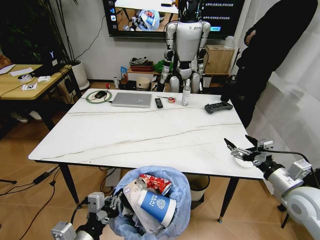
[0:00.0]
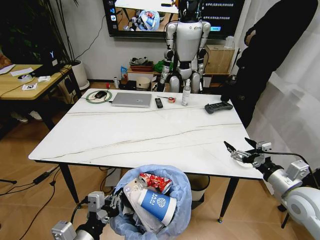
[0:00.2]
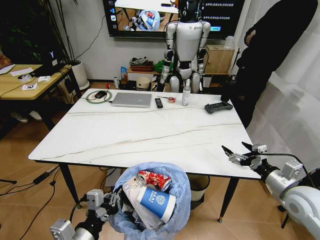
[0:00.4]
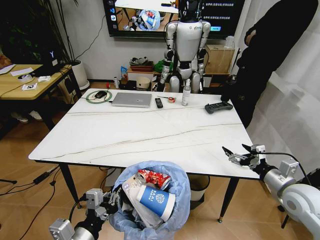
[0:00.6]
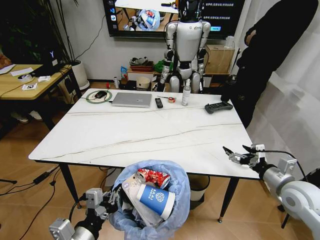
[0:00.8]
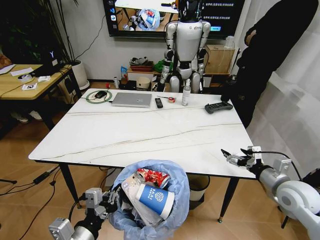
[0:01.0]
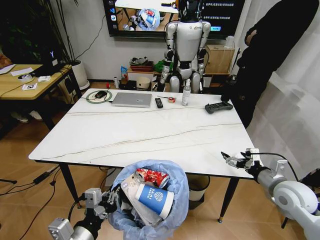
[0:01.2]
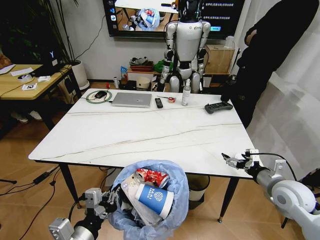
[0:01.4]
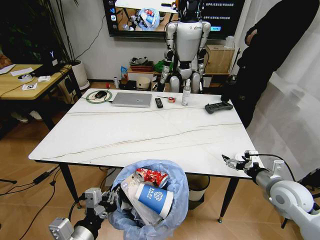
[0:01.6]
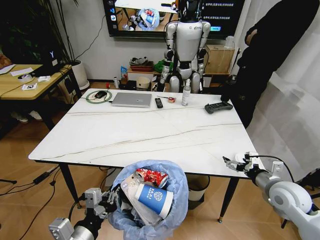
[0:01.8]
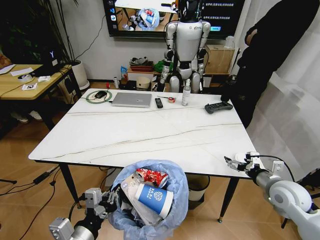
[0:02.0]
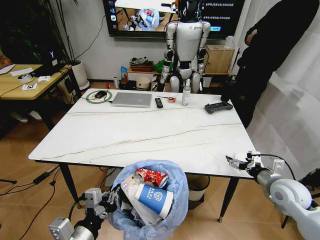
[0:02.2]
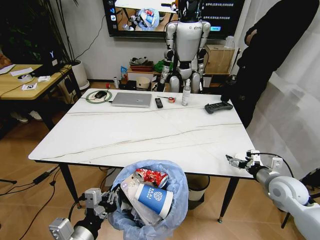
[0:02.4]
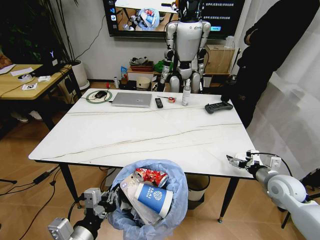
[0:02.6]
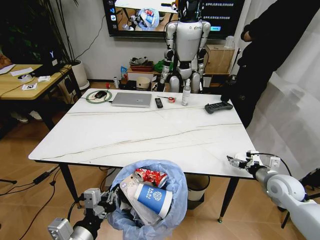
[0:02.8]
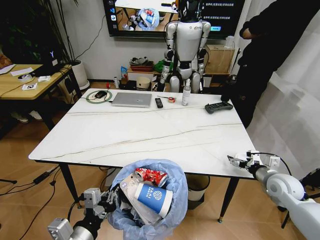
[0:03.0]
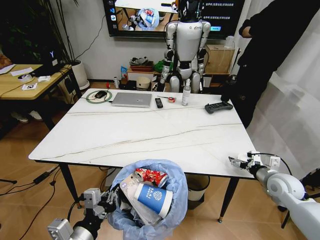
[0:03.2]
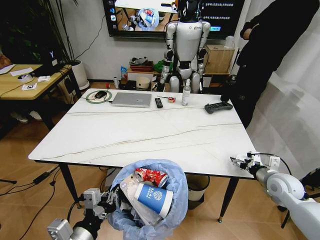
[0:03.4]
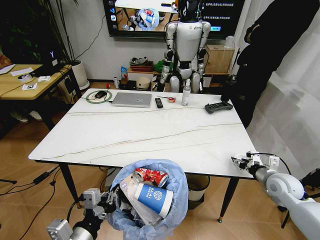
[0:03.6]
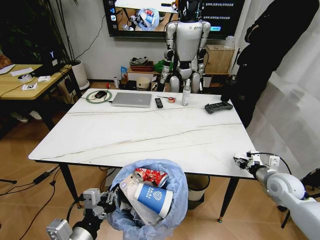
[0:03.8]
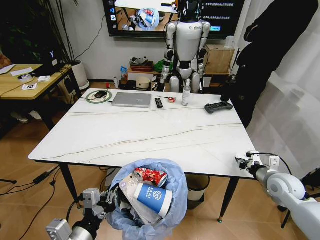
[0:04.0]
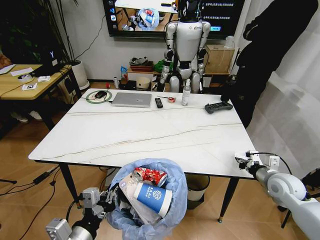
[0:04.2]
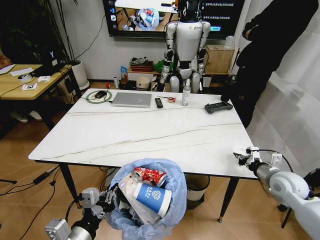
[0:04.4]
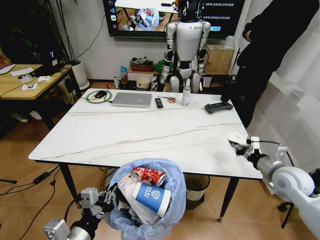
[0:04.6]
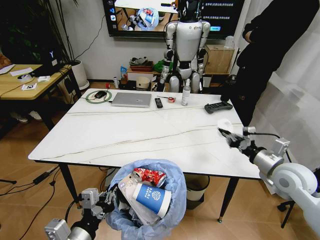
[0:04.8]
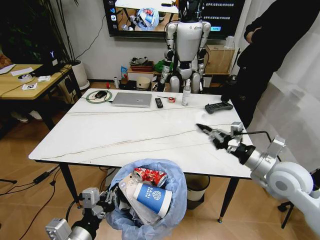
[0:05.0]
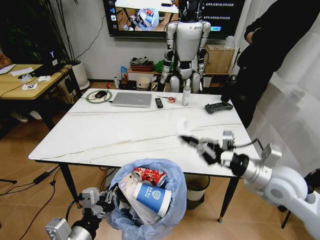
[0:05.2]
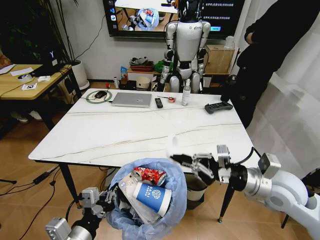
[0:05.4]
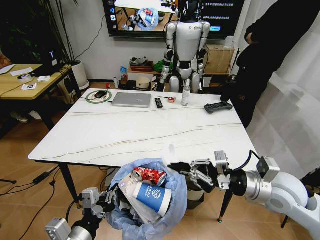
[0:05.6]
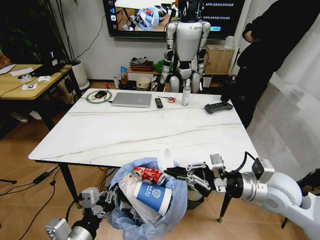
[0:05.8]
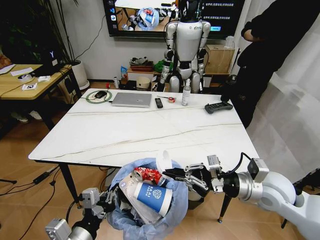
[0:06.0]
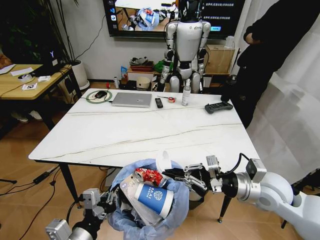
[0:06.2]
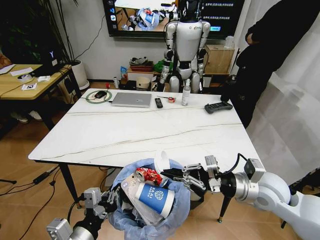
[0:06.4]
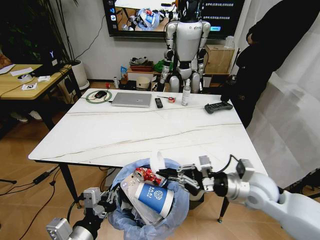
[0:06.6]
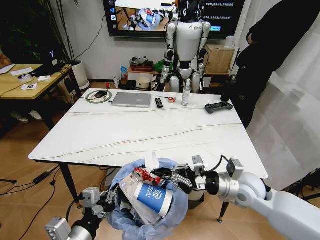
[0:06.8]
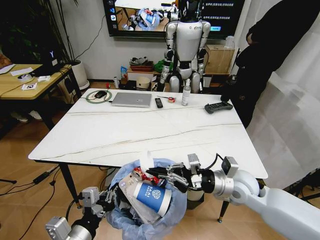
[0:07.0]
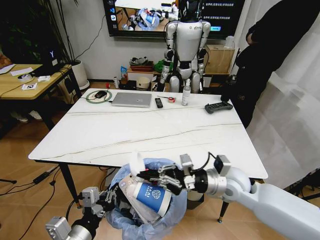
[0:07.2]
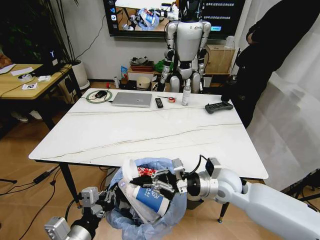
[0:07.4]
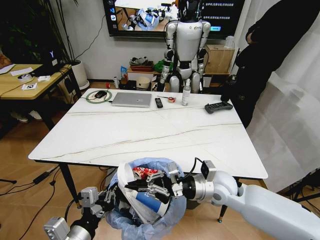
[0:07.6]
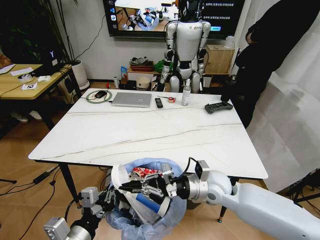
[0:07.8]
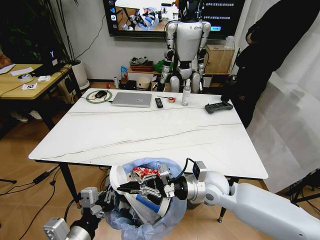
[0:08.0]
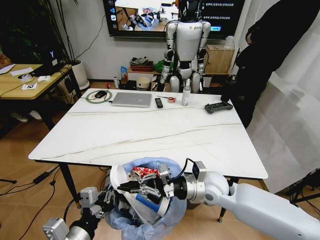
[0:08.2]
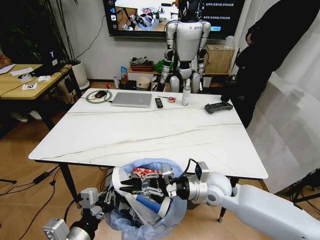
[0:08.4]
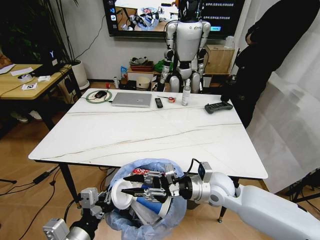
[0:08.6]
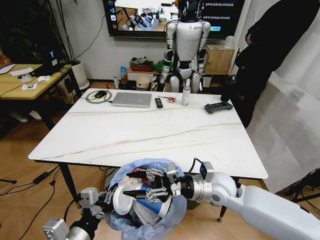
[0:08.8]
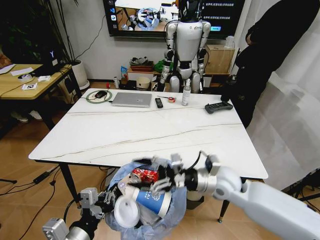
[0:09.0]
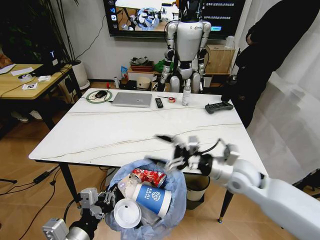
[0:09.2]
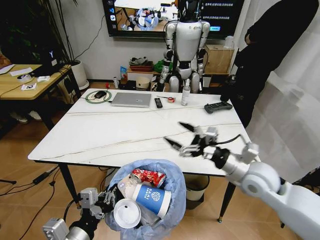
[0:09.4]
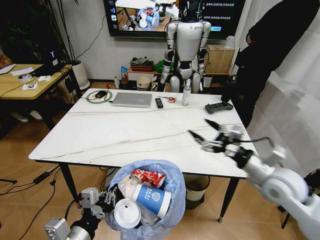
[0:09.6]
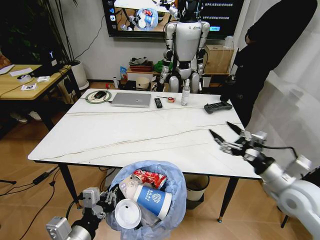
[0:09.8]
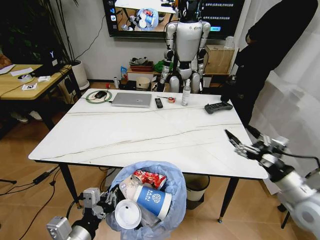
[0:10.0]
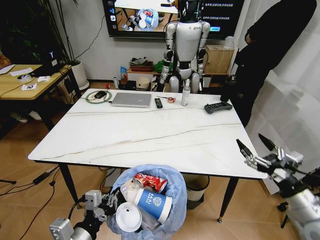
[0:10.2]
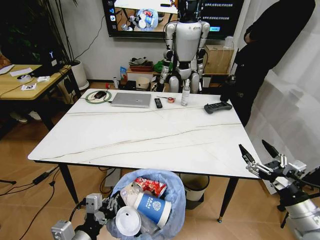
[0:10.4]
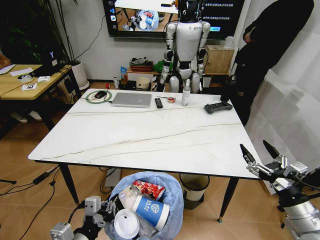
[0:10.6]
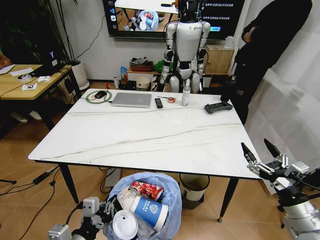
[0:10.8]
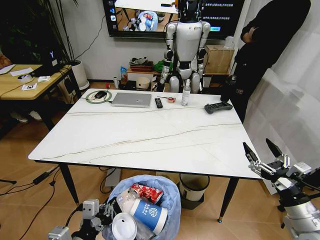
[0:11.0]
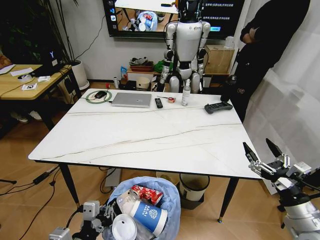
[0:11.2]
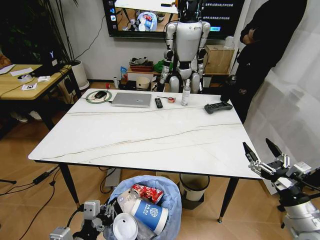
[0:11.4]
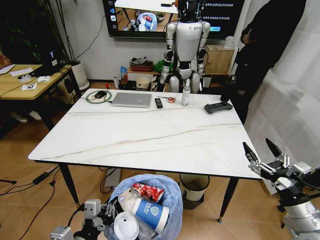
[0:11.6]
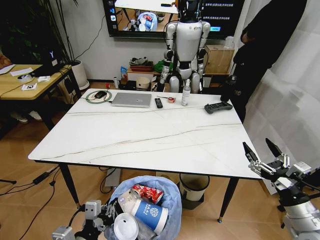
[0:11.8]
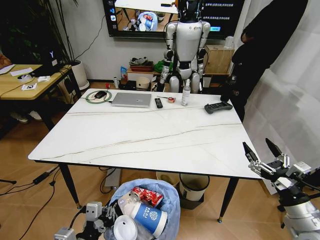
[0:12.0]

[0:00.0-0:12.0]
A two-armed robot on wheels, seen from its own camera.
Task of the whole recording: Pick up the trash bin and place the trash from the table into it.
0:00.0 to 0:01.6: The right gripper ends up approximately 5 cm from where it was.
0:01.6 to 0:03.0: The right gripper ends up about 5 cm from where it was.
0:03.0 to 0:04.4: The right gripper closes.
0:04.4 to 0:06.0: The right gripper travels to the left and upward by roughly 15 cm.
0:06.0 to 0:07.6: The right gripper goes about 15 cm to the left and downward.
0:07.6 to 0:09.0: The right gripper opens its fingers.
0:09.0 to 0:10.4: The right gripper moves to the right and backward, some 25 cm.
0:10.4 to 0:12.0: The grippers move only a little.

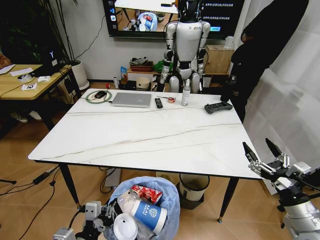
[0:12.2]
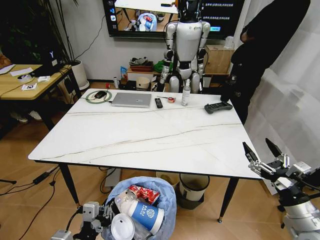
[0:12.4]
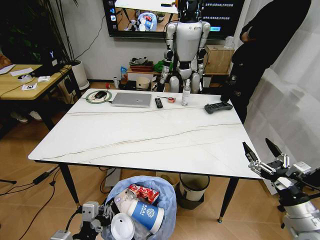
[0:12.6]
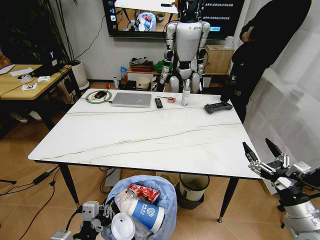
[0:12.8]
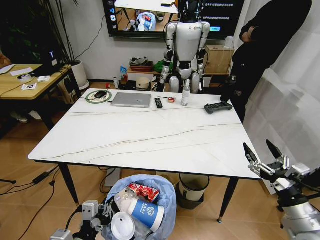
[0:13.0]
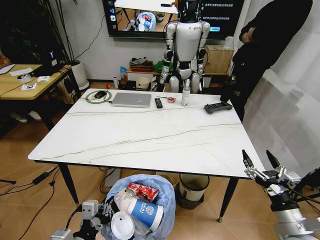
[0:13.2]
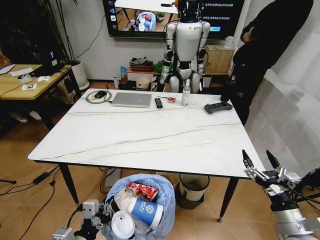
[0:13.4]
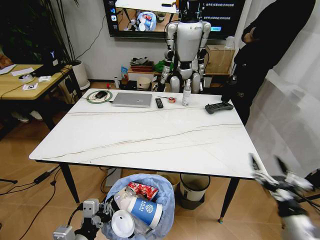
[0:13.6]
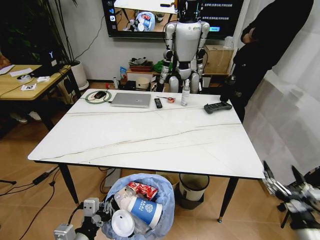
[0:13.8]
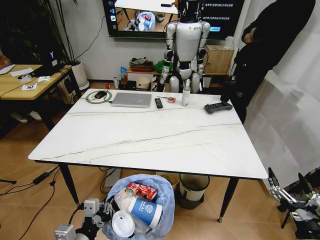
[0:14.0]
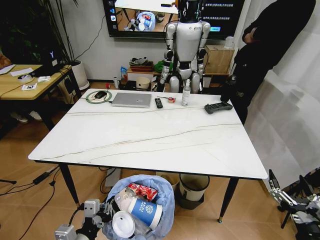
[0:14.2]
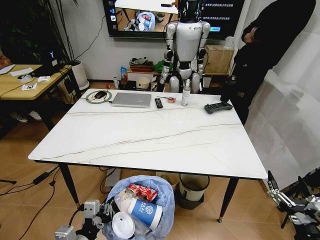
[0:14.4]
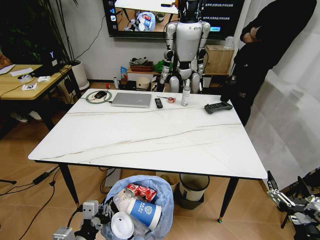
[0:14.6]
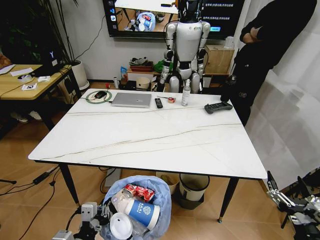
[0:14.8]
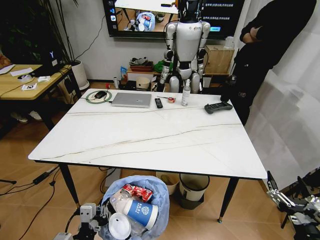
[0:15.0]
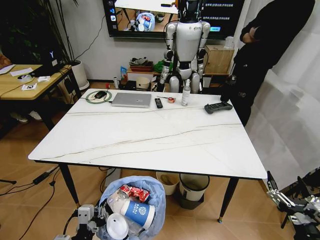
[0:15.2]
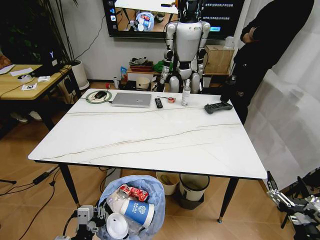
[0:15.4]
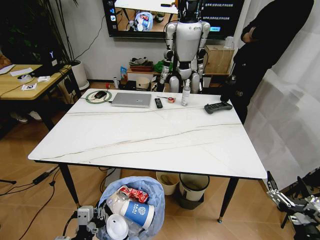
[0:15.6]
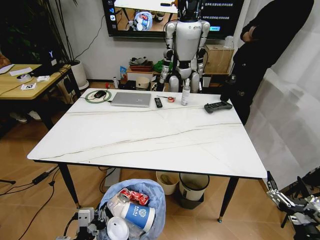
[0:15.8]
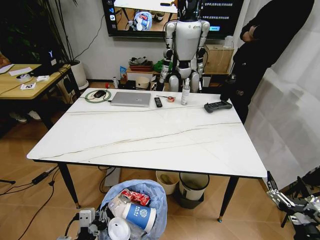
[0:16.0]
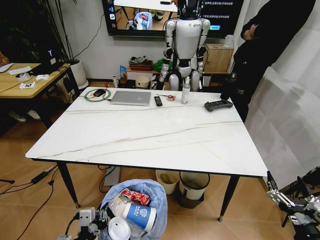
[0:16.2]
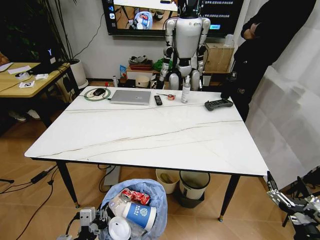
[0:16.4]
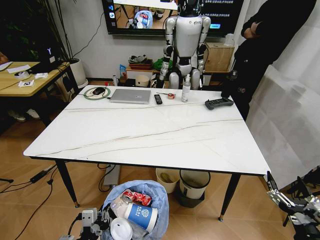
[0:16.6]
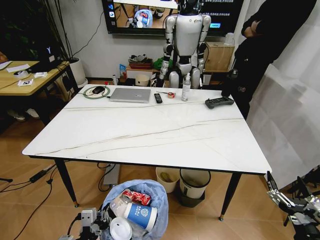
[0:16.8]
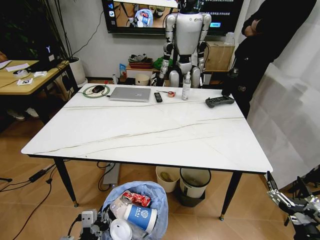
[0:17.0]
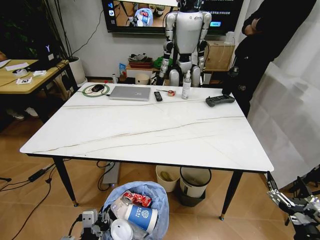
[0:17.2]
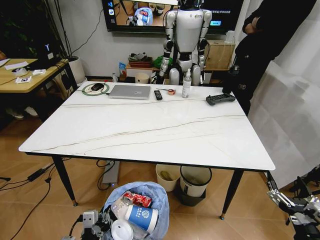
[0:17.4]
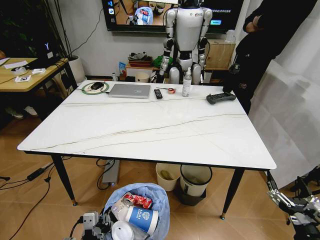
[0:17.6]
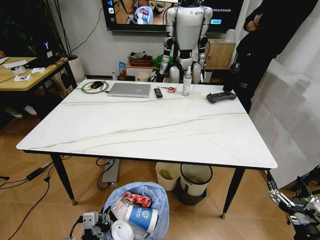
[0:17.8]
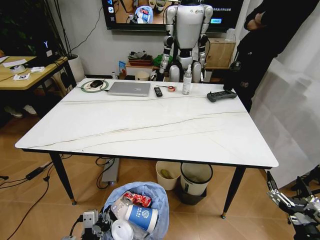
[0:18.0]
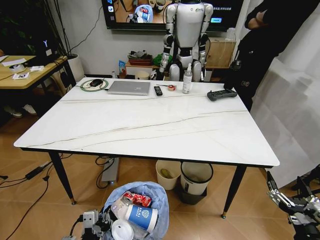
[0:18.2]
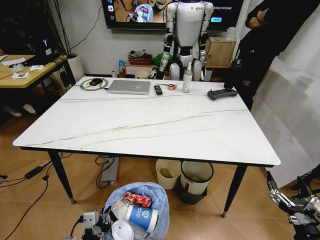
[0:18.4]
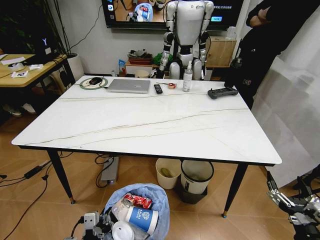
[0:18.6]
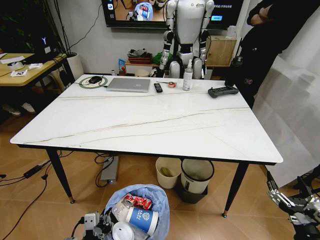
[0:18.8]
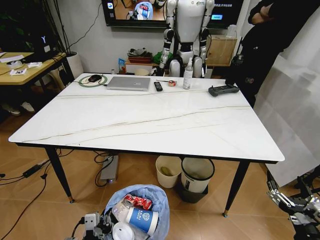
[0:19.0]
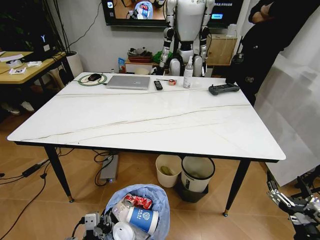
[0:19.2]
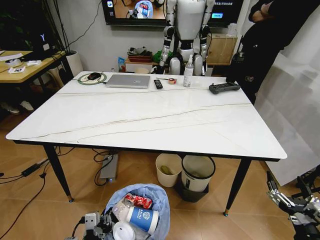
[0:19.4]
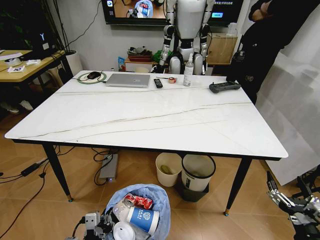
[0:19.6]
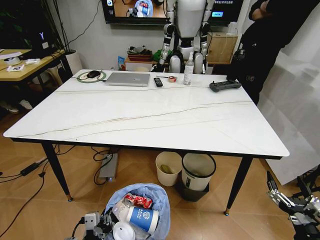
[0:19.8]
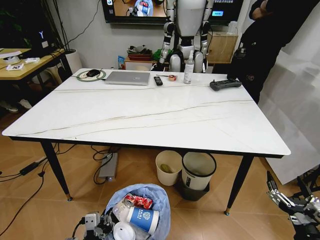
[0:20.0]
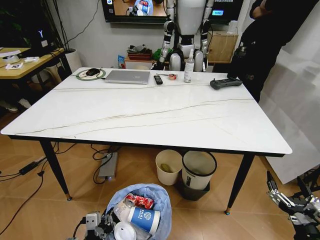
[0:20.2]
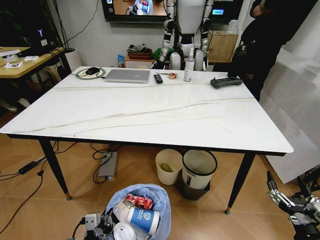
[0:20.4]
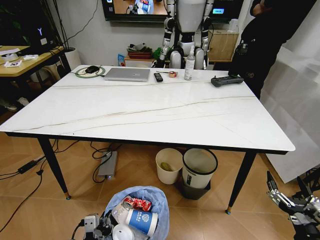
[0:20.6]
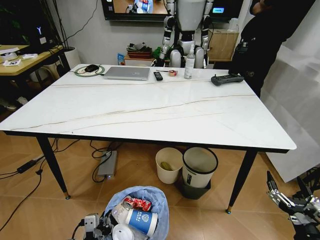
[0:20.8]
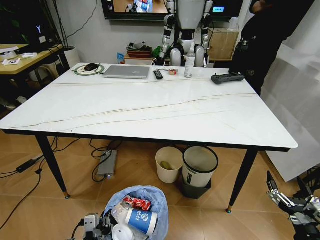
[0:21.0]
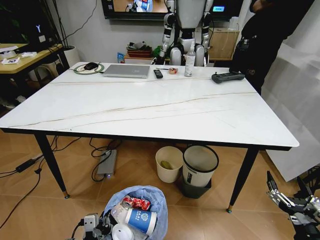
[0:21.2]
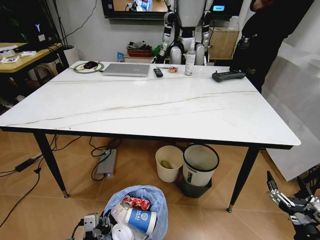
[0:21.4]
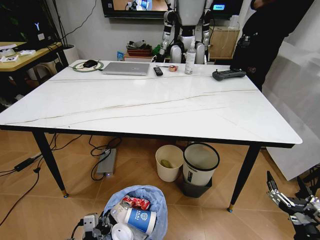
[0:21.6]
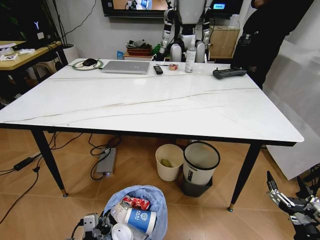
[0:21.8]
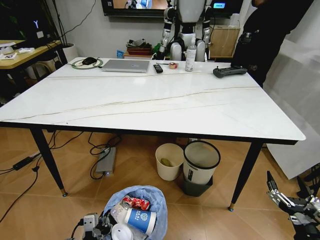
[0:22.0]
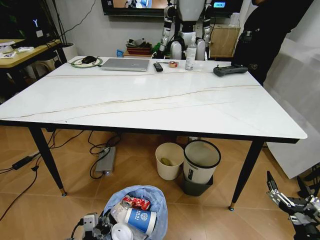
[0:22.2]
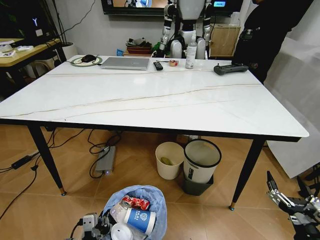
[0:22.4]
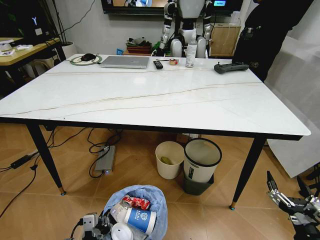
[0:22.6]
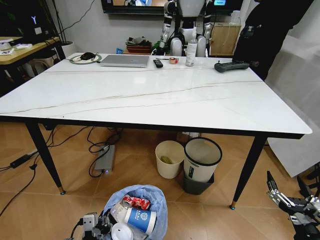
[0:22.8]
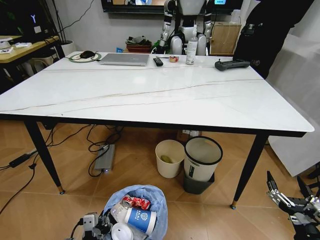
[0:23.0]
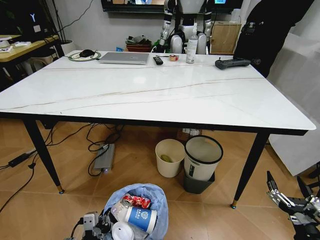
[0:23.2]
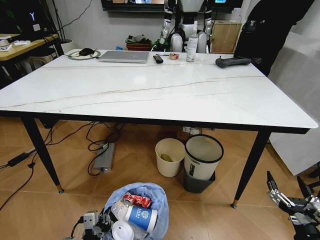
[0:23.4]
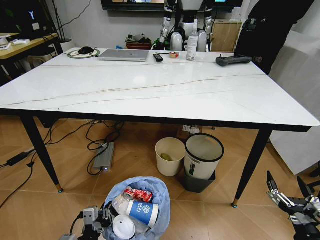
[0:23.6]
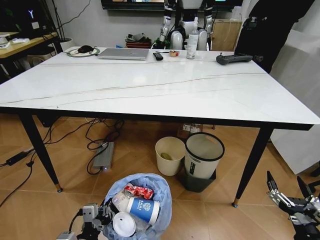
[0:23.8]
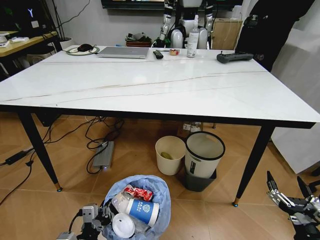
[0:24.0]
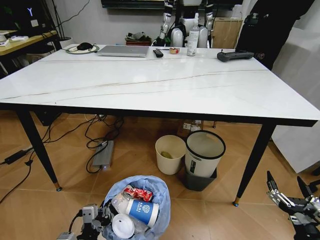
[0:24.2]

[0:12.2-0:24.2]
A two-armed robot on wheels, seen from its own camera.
Task of the whole recording: Pick up the trash bin and place the trash from the table into it.
0:12.2 to 0:13.8: The right gripper is displaced backward by roughly 5 cm.
0:13.8 to 0:15.2: The grippers move only a little.
